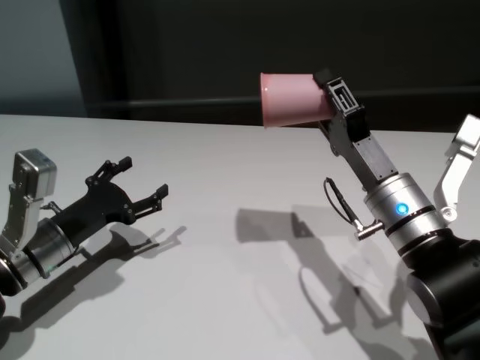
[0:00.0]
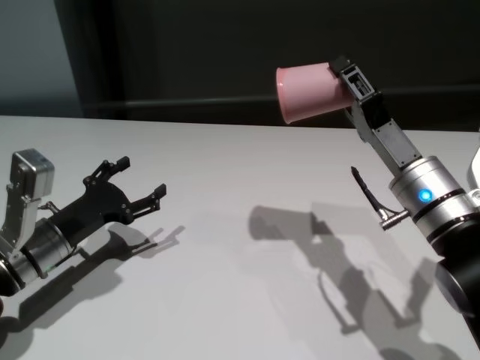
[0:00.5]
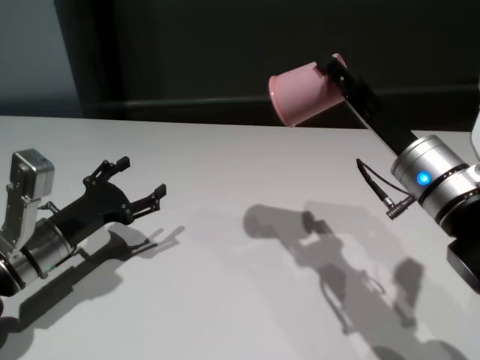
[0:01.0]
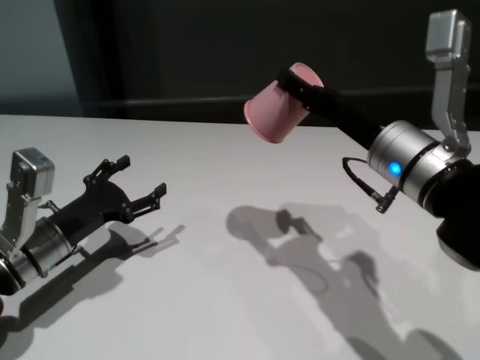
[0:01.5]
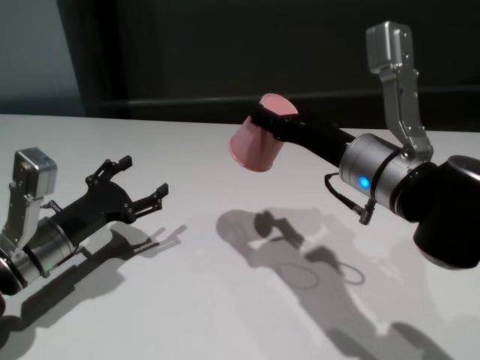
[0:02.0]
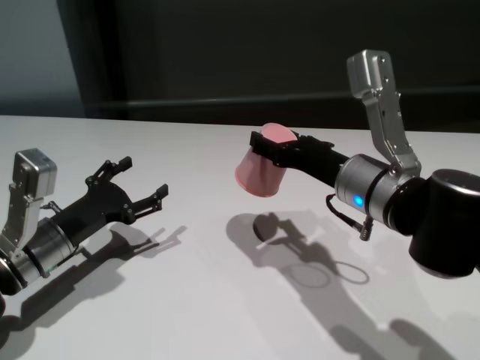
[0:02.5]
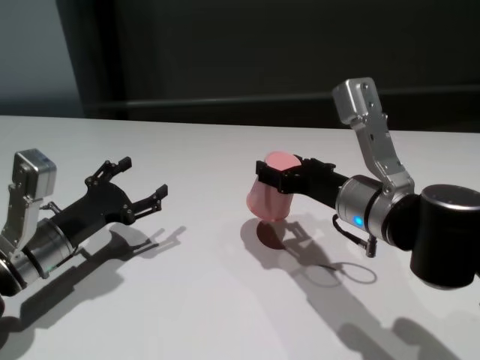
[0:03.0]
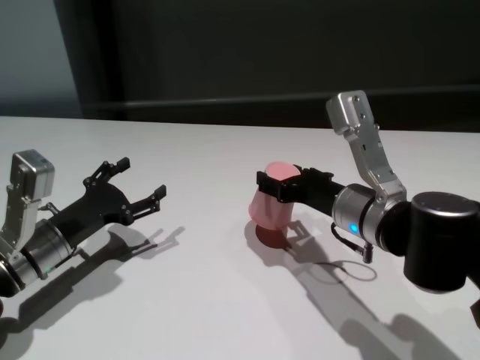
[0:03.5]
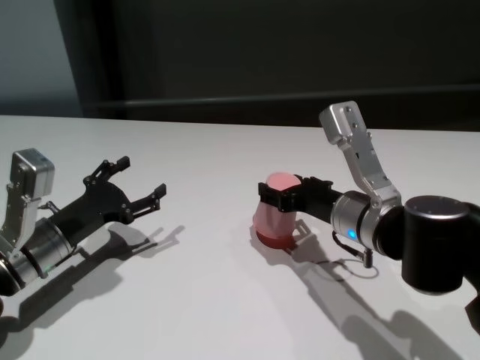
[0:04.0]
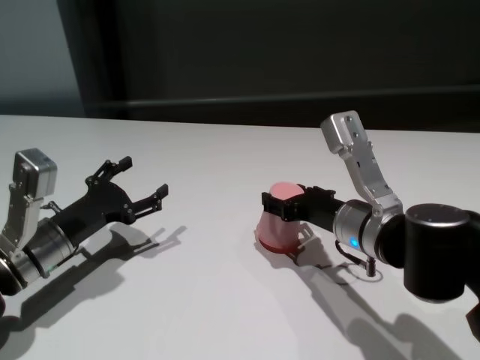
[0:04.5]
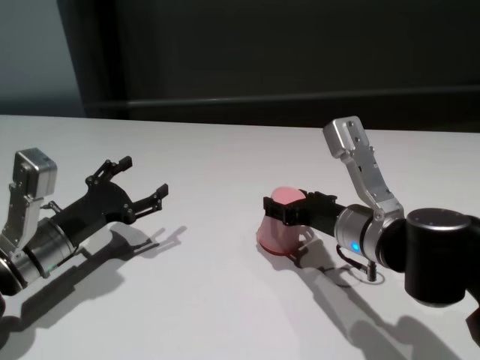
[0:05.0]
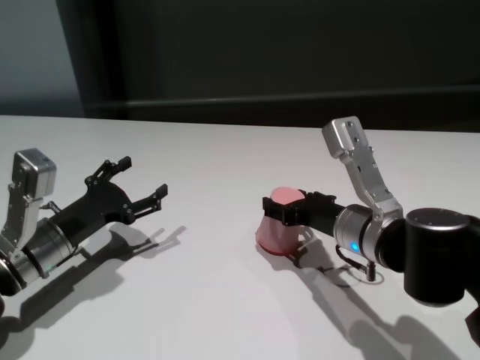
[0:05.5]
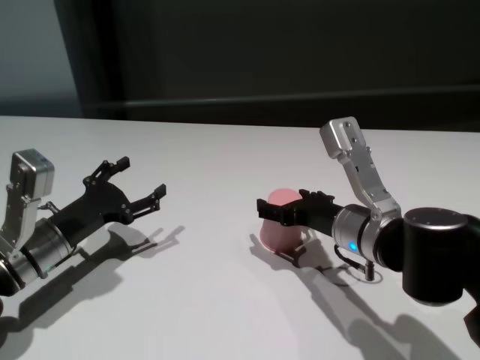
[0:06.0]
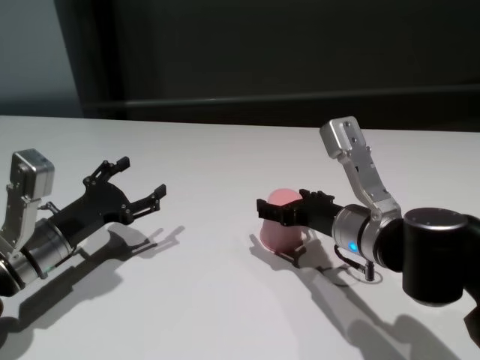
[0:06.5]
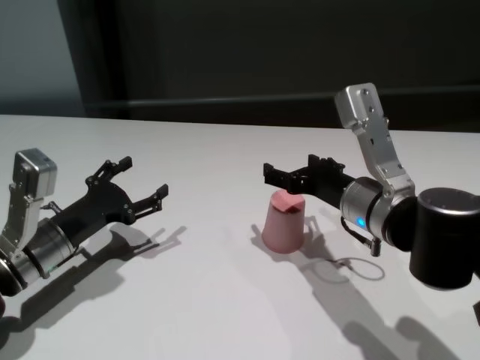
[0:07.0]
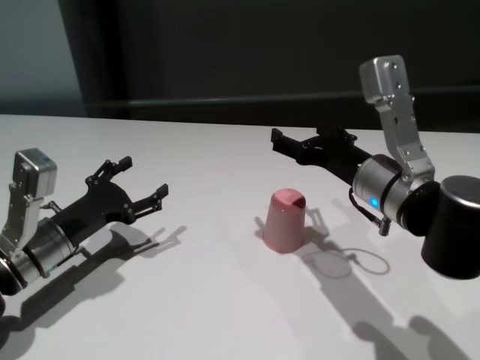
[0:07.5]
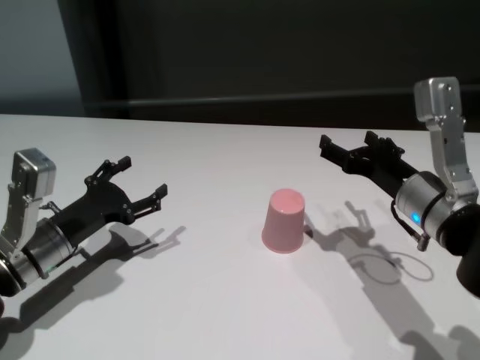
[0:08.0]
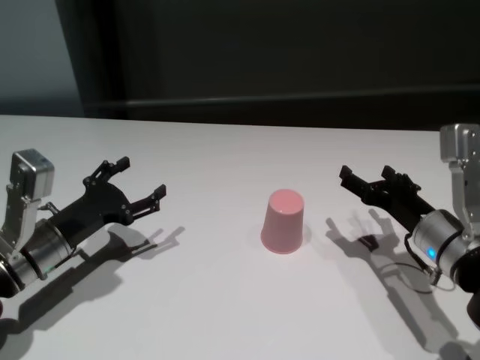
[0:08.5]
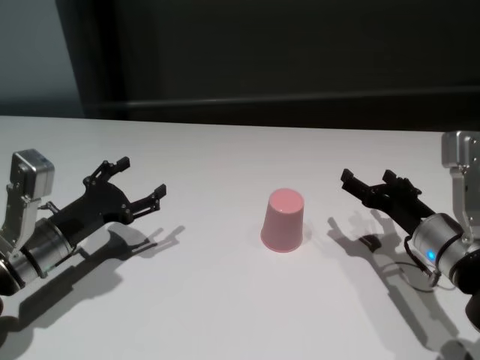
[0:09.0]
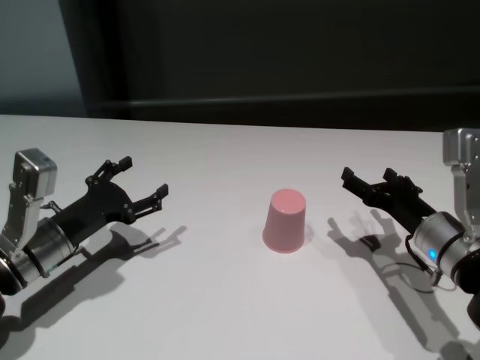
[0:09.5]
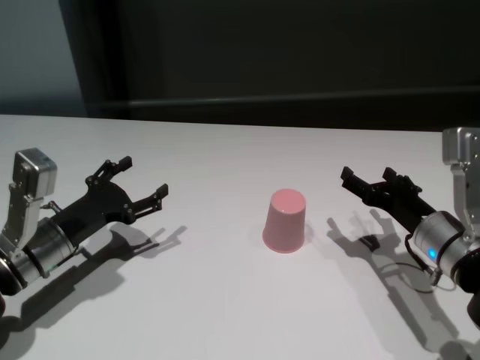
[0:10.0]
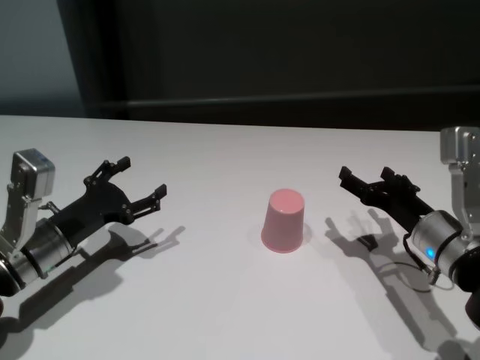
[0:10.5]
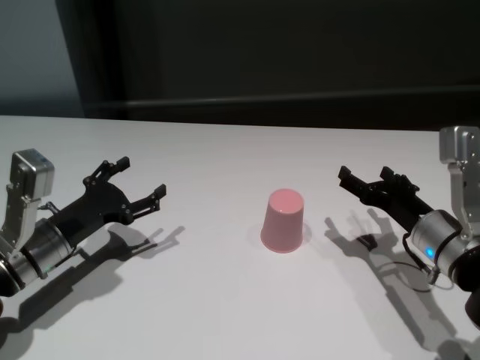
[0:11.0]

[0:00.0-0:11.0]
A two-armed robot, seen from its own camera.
Task of the whole recording: On the white table pick up the cup with one hand and transfer it to the other hand before turning it over.
Step, 0:00.0 to 0:06.5: Place the cup on the table with right gripper.
